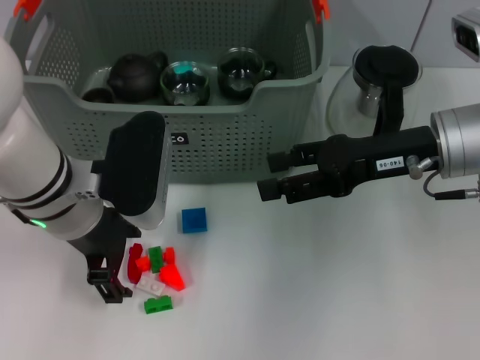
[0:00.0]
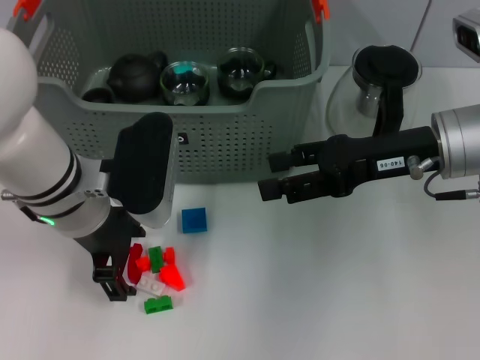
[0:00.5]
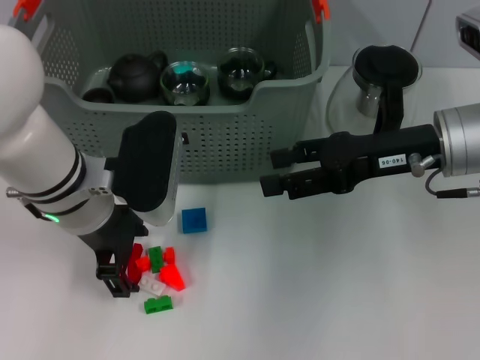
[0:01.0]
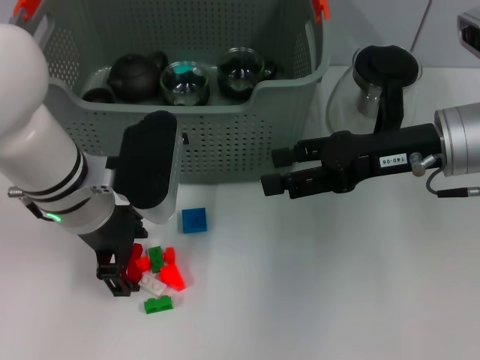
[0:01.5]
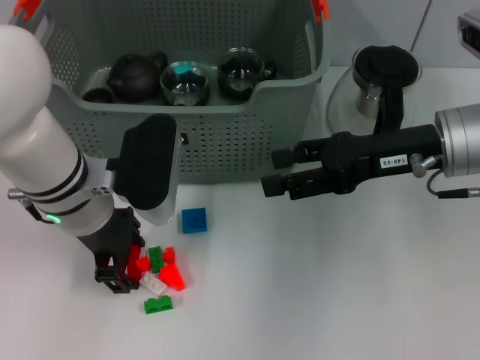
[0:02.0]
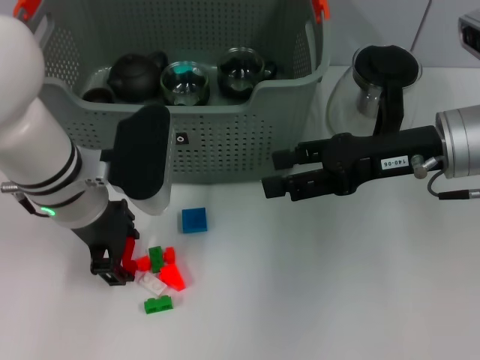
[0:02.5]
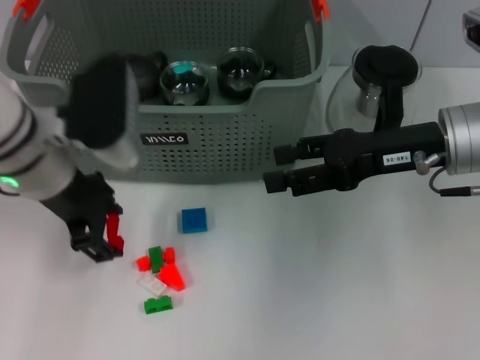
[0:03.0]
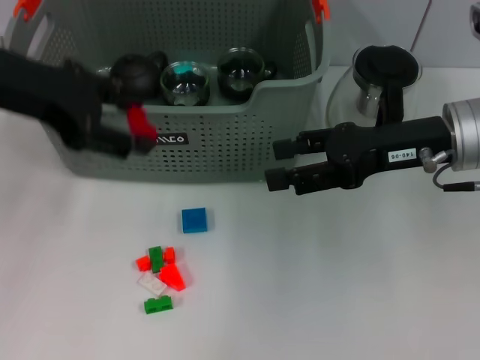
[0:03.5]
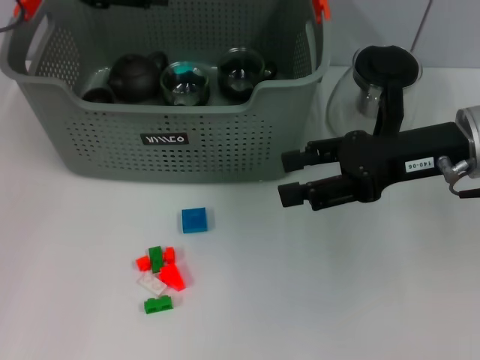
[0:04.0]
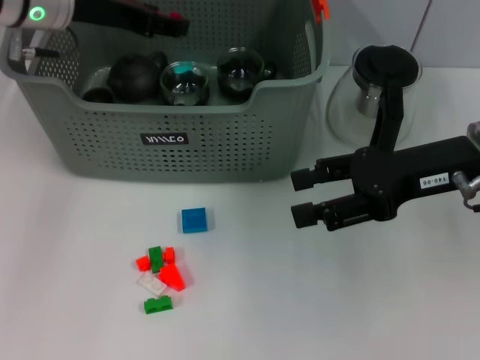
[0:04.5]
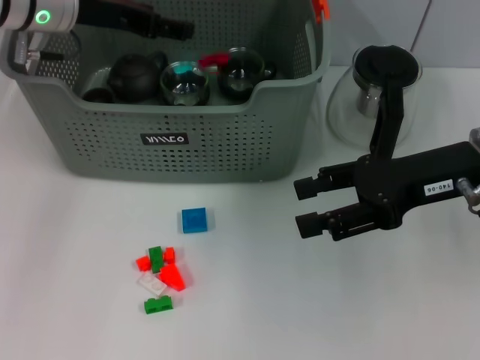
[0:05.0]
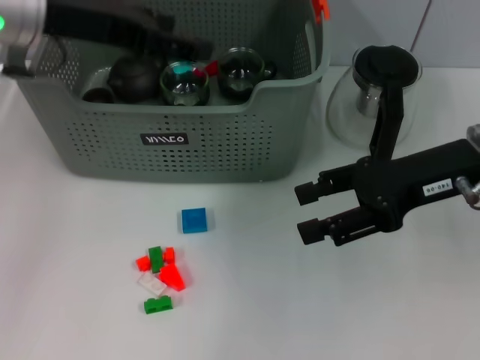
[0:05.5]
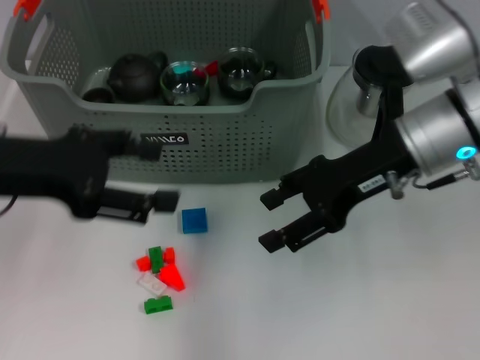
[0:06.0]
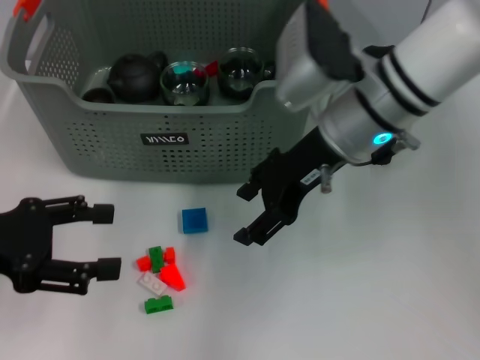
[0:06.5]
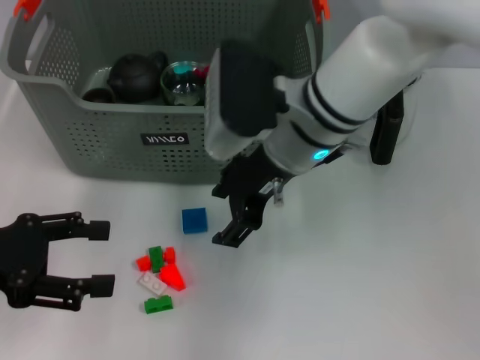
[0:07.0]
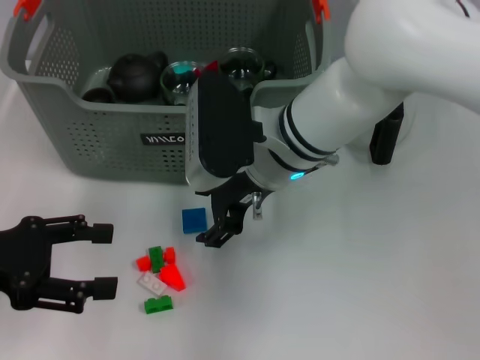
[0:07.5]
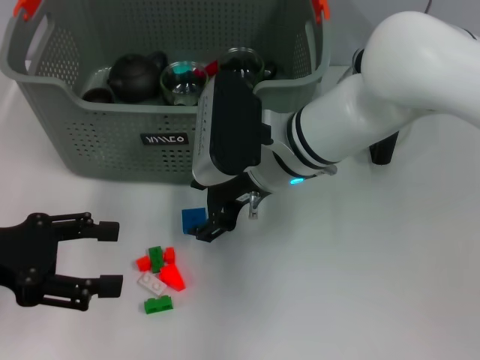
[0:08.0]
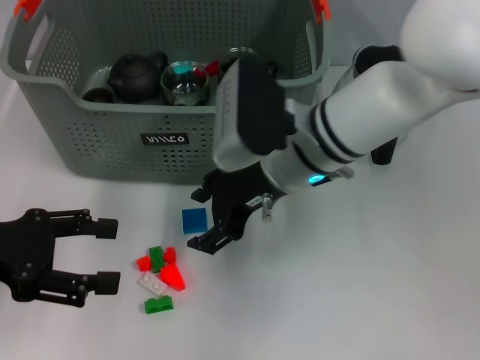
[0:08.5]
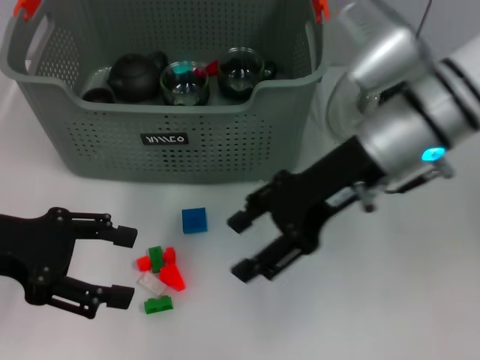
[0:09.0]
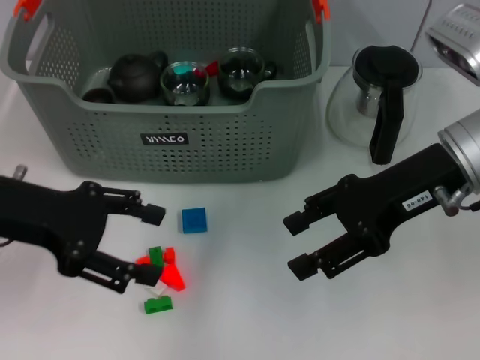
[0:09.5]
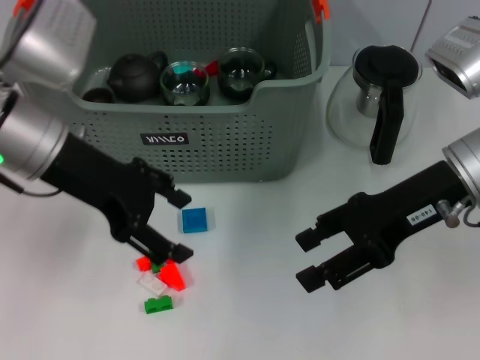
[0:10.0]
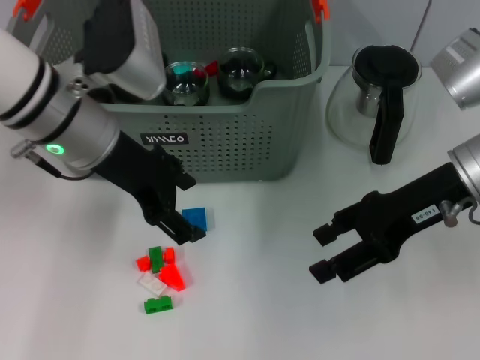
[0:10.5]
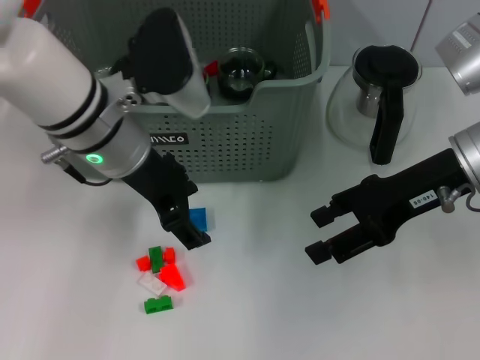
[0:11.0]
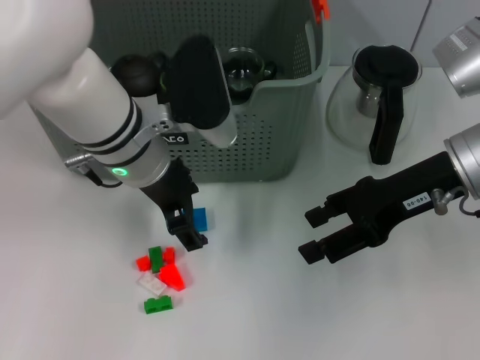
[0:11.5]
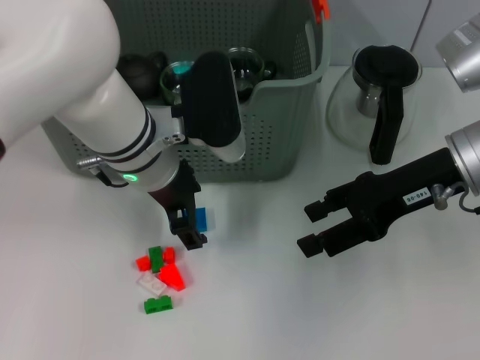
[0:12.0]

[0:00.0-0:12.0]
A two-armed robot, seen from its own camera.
Task of the whole recording: pick up the teacup on the table and place it into the storage bin, pick up the block on the table and place it into the storage bin.
Step, 0:00.0 to 0:02.5: Grasp the red block with left gripper.
Step, 0:03.0 to 0:05.0: Place the red block in the storage box with left gripper.
0:00.0 to 0:02.0: The grippers make only small movements.
0:02.0 to 0:04.0: The left gripper moves upward, to the left and forward, some 20 cm.
0:04.0 to 0:06.0: The left gripper travels backward and downward by approximately 15 cm; the right gripper is displaced to the left by approximately 5 cm.
0:06.0 to 0:08.0: The right gripper travels to the left by about 15 cm, while the left gripper moves downward, roughly 5 cm.
0:08.0 to 0:10.0: The right gripper travels to the right by some 15 cm; the left gripper is displaced to the right, forward and upward by some 15 cm.
0:10.0 to 0:12.0: The left gripper travels to the right and downward by about 10 cm.

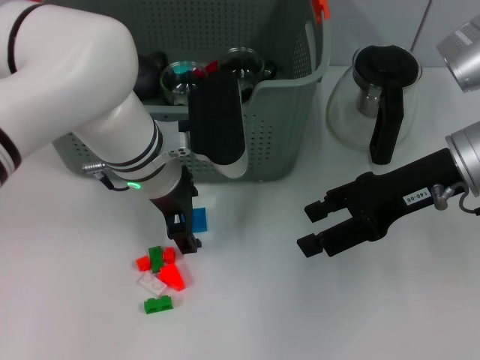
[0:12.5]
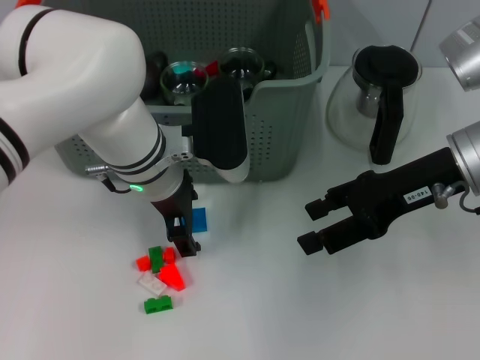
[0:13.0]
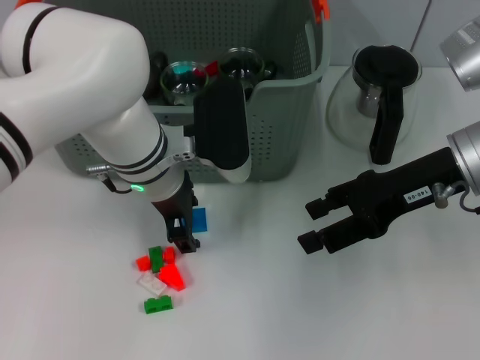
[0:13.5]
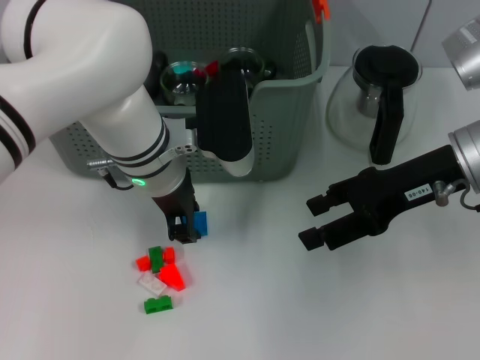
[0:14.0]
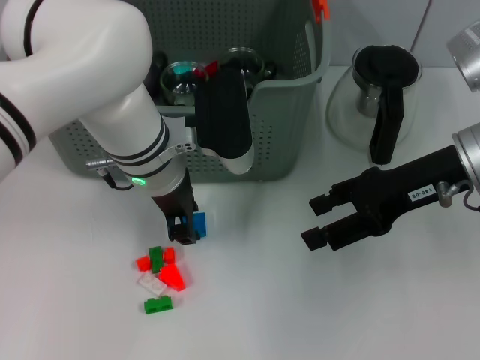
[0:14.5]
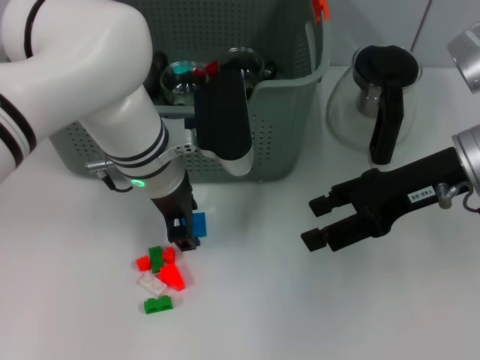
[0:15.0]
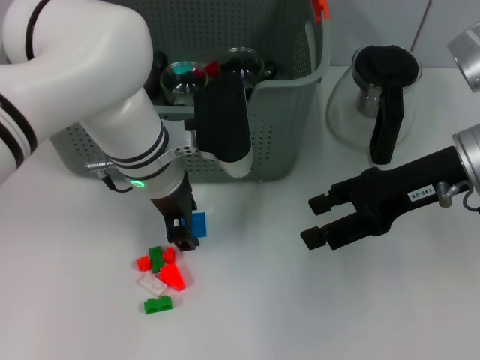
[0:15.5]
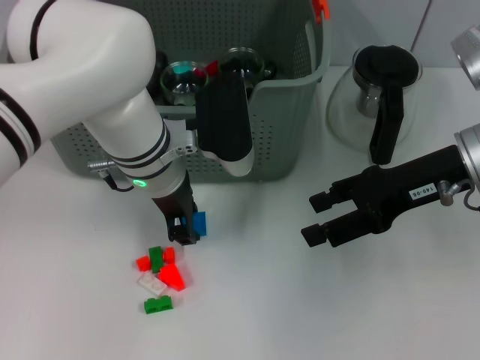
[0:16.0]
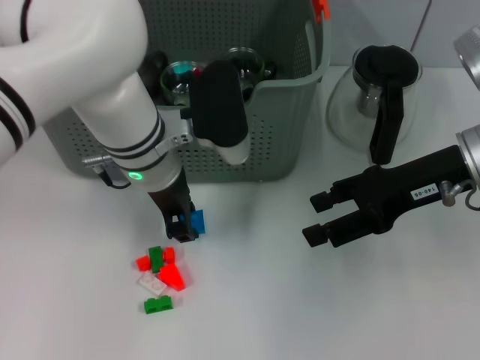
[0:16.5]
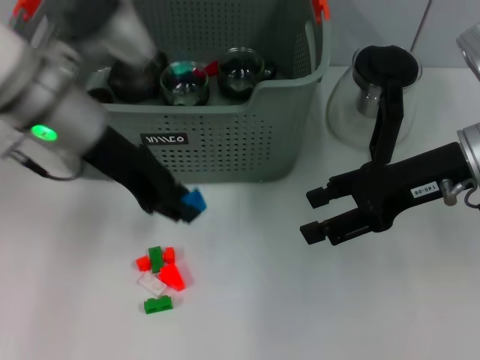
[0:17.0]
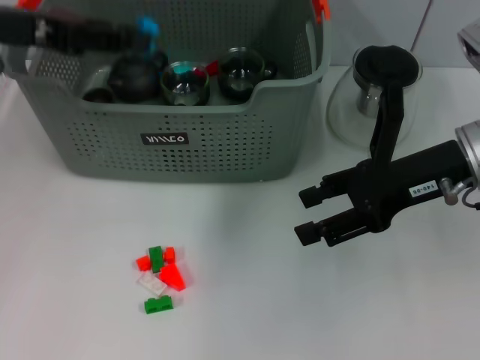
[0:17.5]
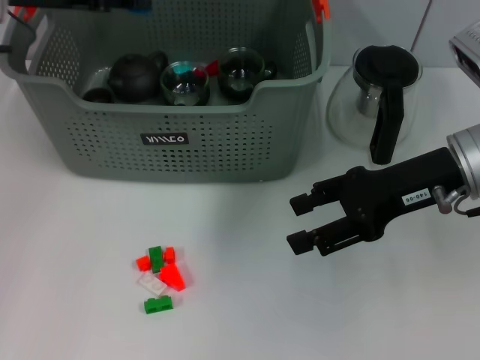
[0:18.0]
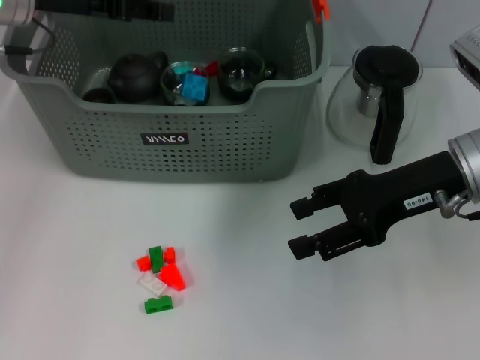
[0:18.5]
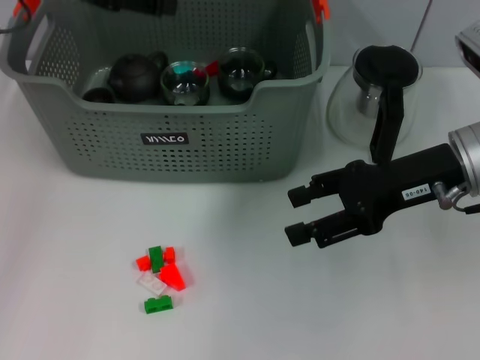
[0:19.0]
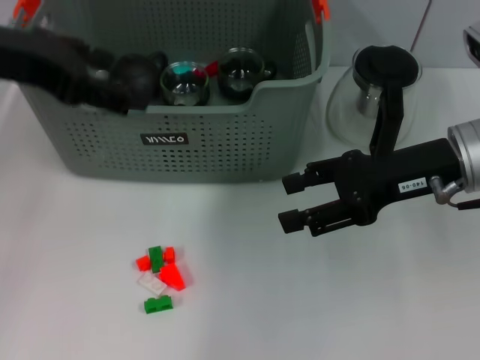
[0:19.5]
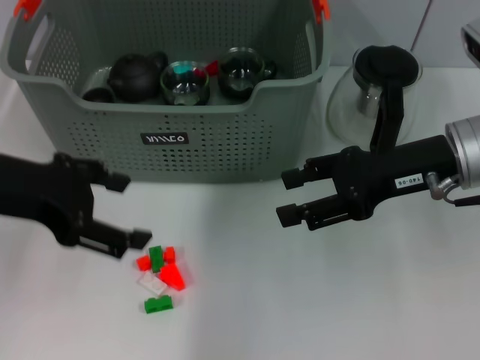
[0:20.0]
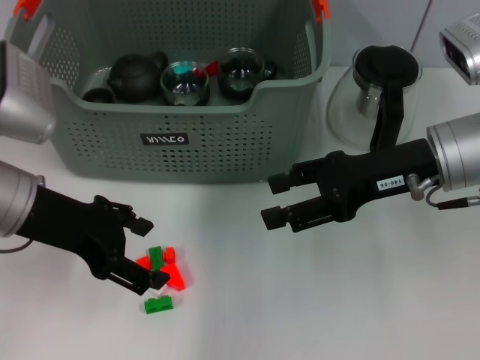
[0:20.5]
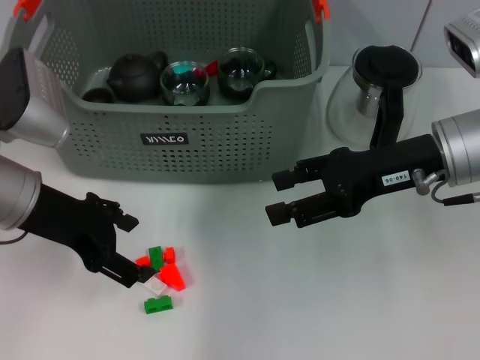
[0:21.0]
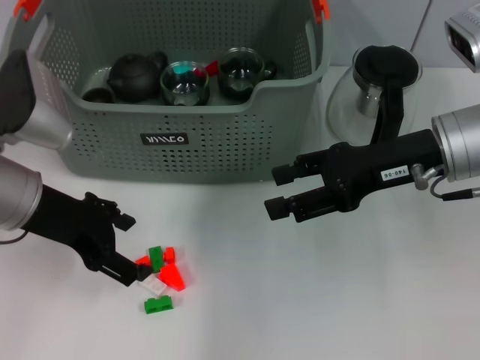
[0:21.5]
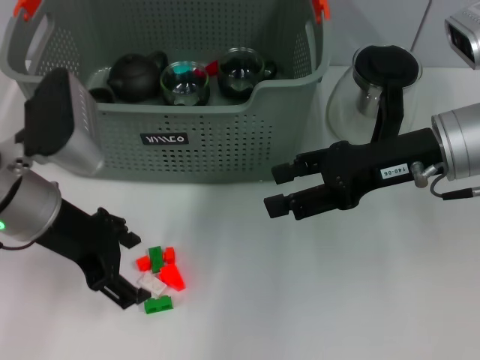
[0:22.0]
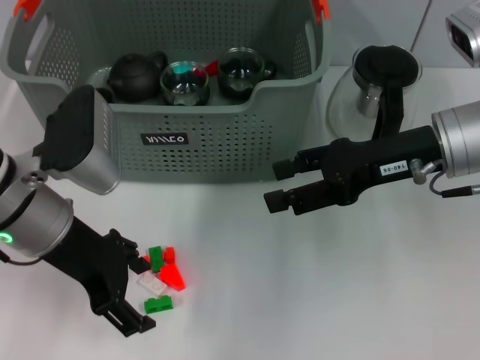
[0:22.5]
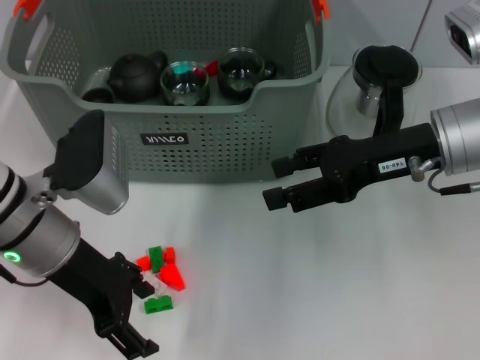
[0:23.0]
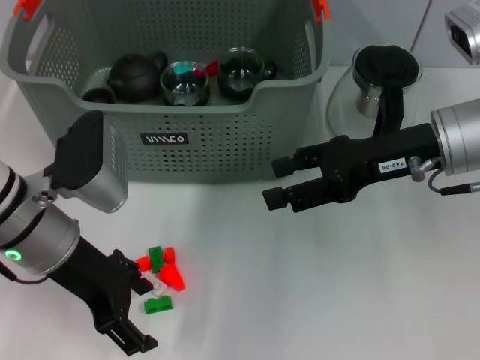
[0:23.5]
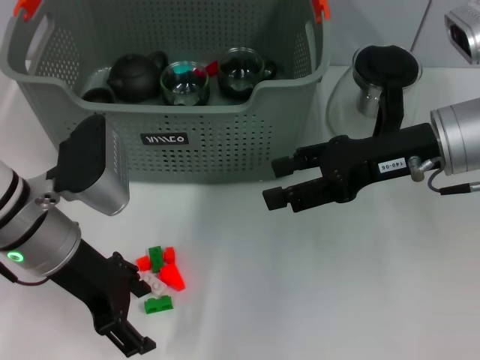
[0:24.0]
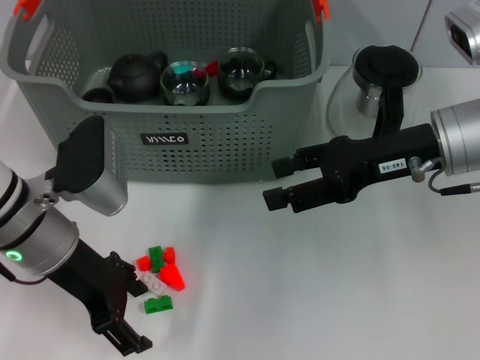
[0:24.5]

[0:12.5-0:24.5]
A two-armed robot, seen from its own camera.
Task of the whole recording: pick up the teacup on the table and place it into the storage bin, pick up the block on the table and place it into the storage bin.
Step, 0:12.5 to 0:16.5: Grasp the dark blue block with left gripper.
Step, 0:17.0 to 0:18.5: Place the dark blue block in the storage box with left gripper.
0:12.5 to 0:14.5: The left gripper closes up.
0:14.5 to 0:16.5: Both grippers stay about where they are.
0:16.5 to 0:18.5: The left gripper is displaced to the left, upward and forward by about 20 cm.
0:18.5 to 0:20.5: The left gripper moves backward and downward, roughly 15 cm, and opens up.
0:20.5 to 0:22.5: The grippers move only a little.
0:22.5 to 0:24.5: There are only small adjustments of the grippers.

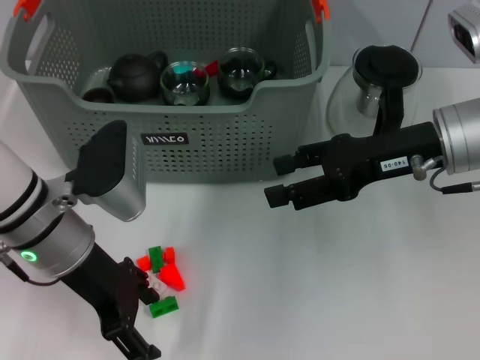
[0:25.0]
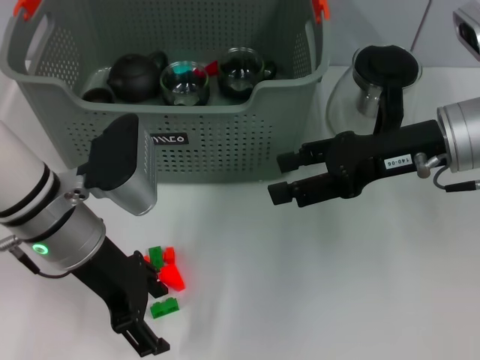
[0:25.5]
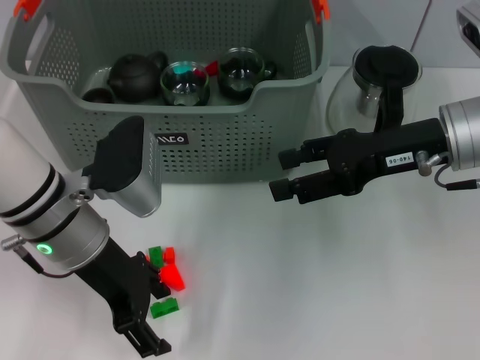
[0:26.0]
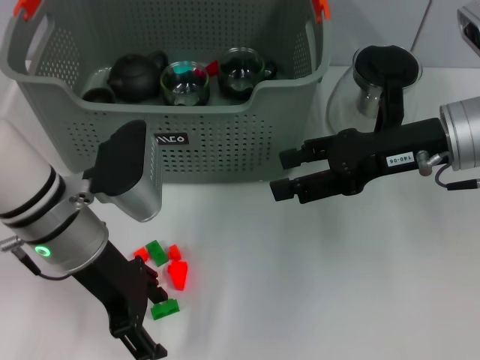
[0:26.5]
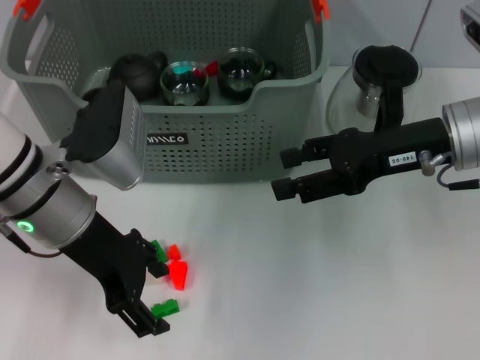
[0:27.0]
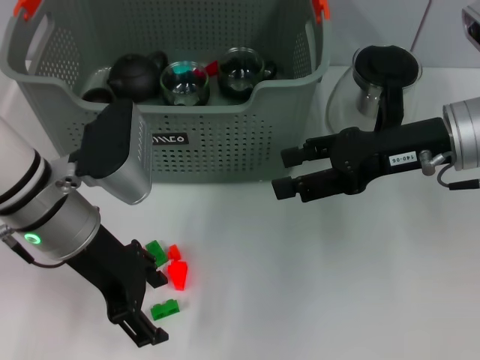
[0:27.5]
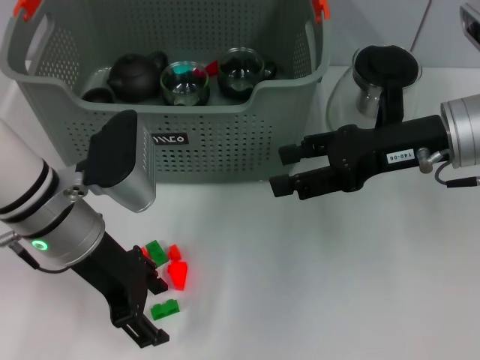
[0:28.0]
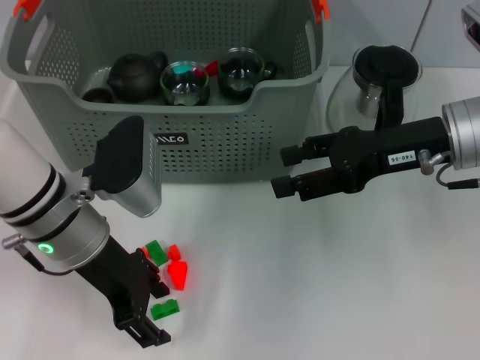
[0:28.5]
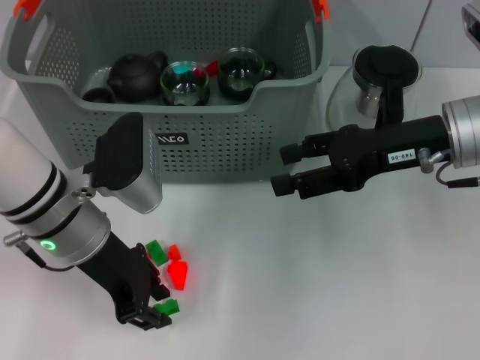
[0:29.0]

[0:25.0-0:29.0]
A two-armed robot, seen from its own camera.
Task of the whole recording: pick up the teacup on the table and place it into the storage bin, pick up the block on the table and place it into the storage bin.
0:25.0 to 0:27.0: The grippers stay close to where they were, moving slightly.
0:27.0 to 0:29.0: The left gripper closes.
